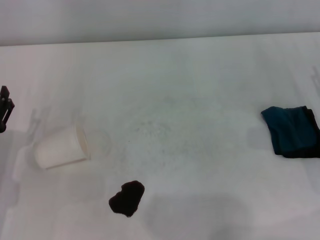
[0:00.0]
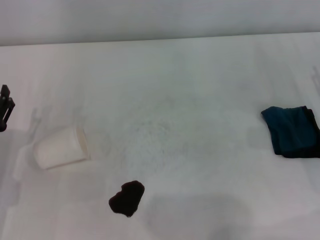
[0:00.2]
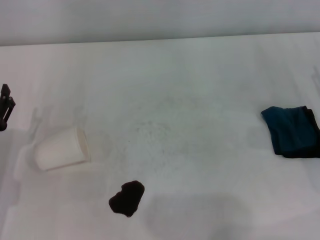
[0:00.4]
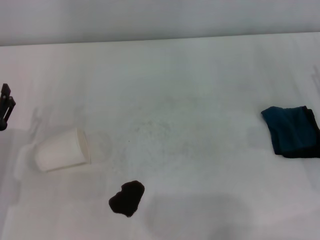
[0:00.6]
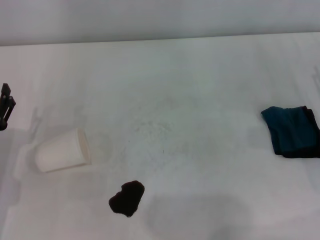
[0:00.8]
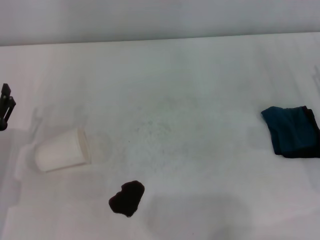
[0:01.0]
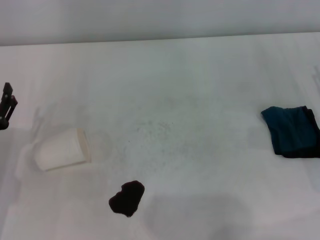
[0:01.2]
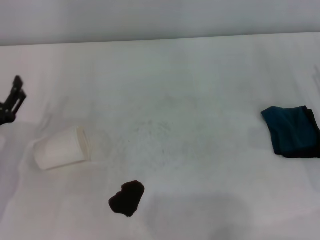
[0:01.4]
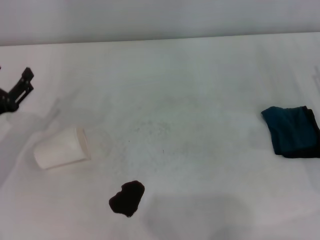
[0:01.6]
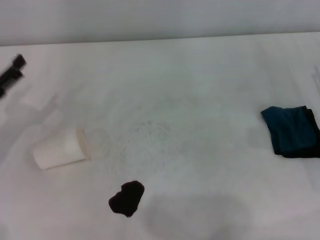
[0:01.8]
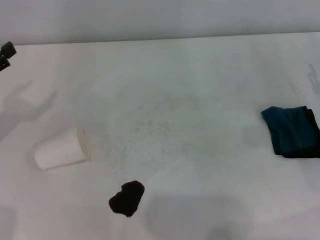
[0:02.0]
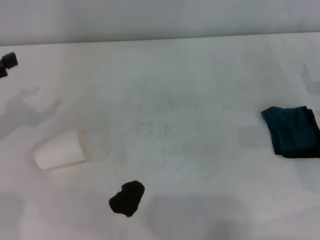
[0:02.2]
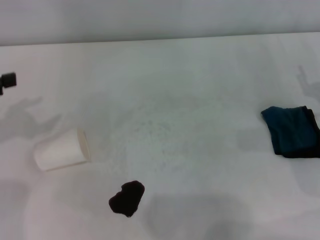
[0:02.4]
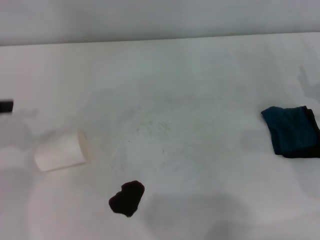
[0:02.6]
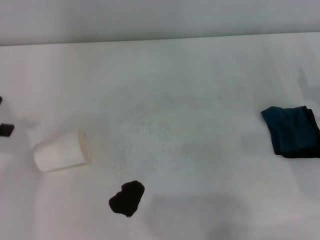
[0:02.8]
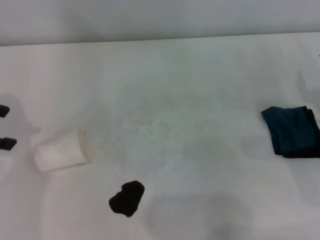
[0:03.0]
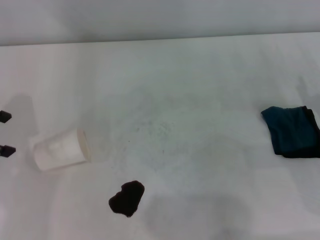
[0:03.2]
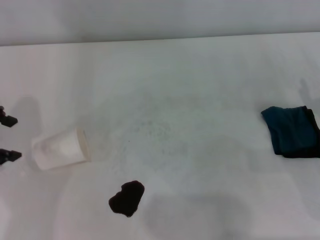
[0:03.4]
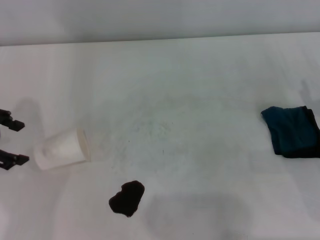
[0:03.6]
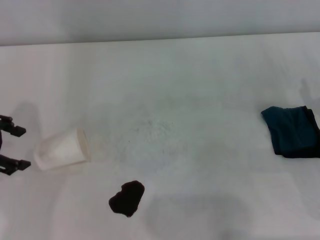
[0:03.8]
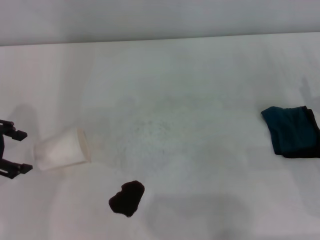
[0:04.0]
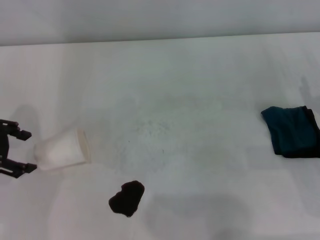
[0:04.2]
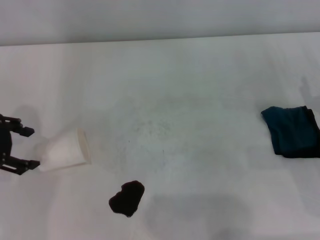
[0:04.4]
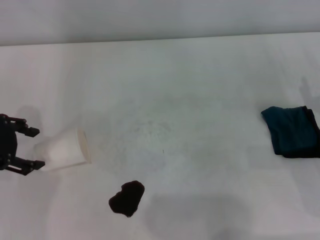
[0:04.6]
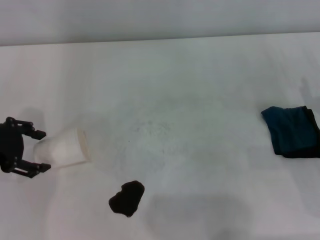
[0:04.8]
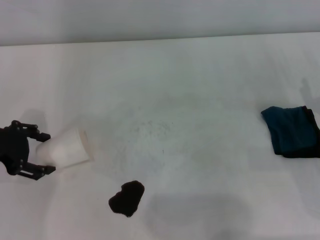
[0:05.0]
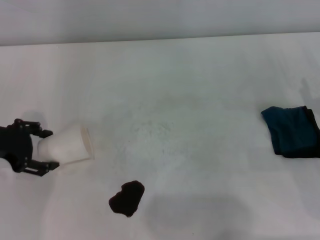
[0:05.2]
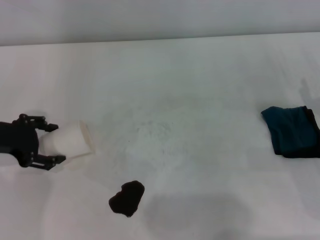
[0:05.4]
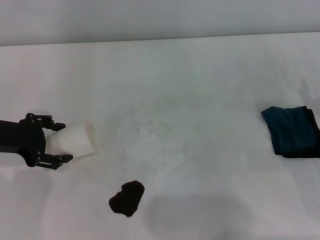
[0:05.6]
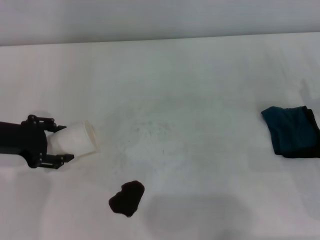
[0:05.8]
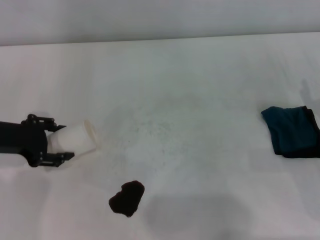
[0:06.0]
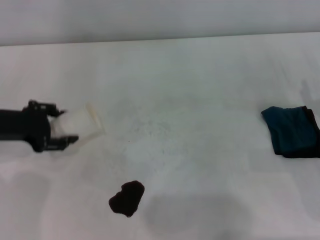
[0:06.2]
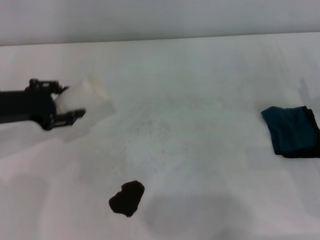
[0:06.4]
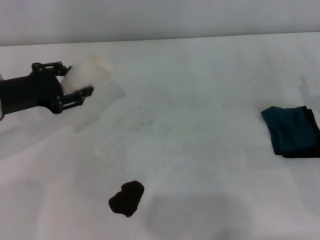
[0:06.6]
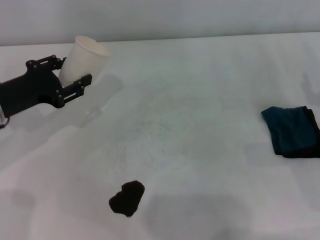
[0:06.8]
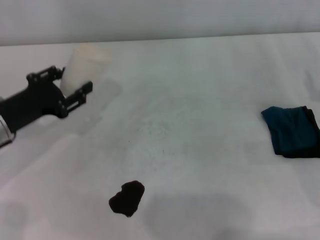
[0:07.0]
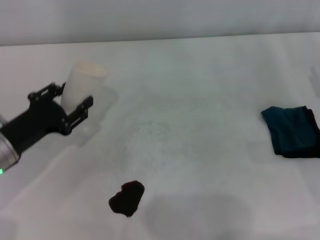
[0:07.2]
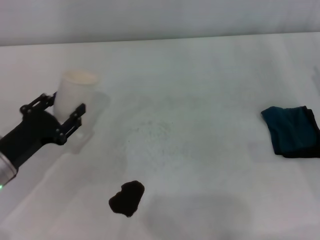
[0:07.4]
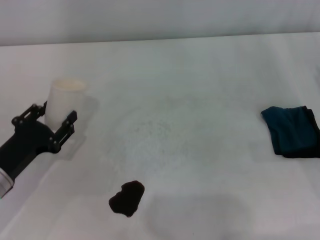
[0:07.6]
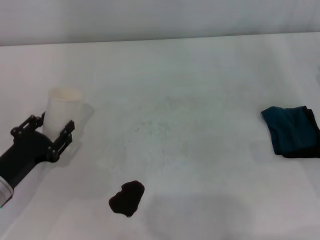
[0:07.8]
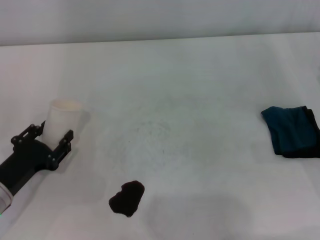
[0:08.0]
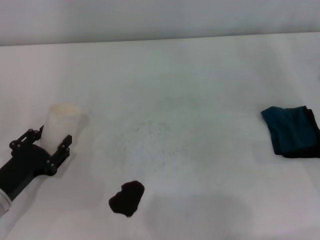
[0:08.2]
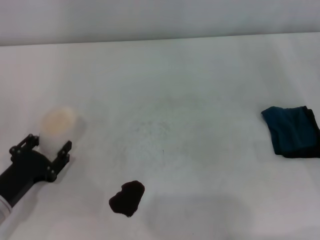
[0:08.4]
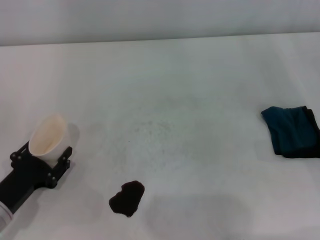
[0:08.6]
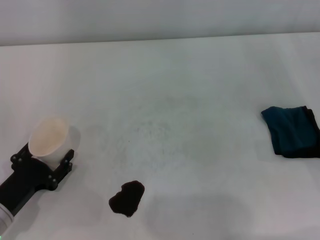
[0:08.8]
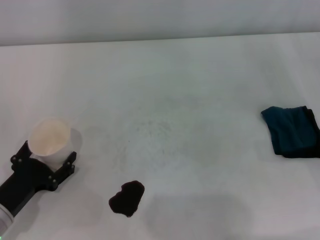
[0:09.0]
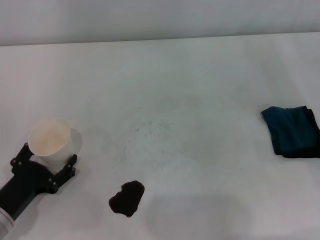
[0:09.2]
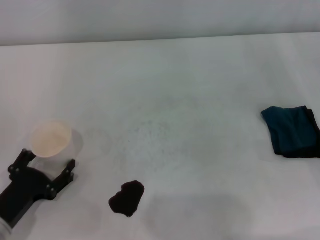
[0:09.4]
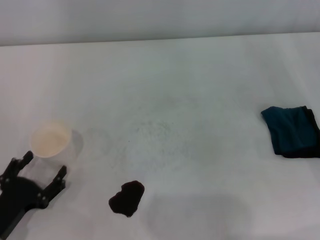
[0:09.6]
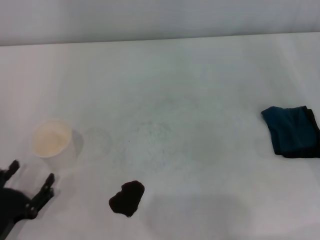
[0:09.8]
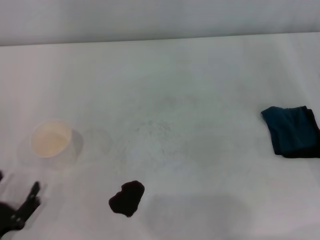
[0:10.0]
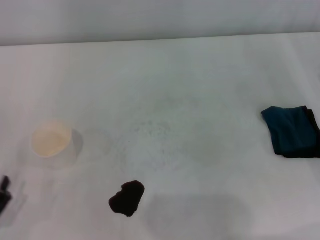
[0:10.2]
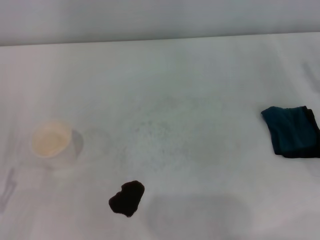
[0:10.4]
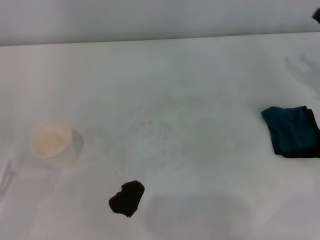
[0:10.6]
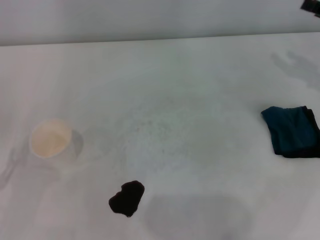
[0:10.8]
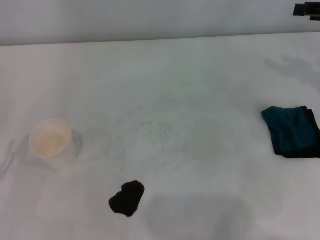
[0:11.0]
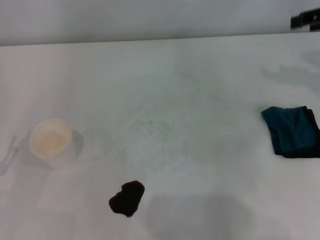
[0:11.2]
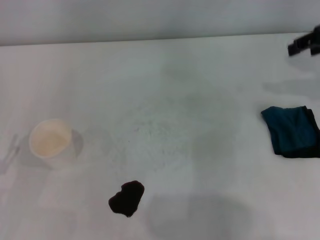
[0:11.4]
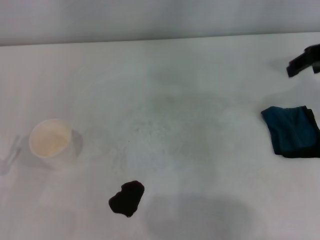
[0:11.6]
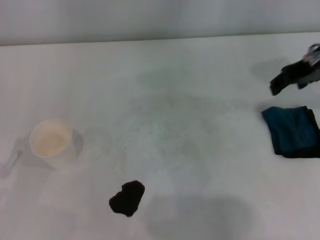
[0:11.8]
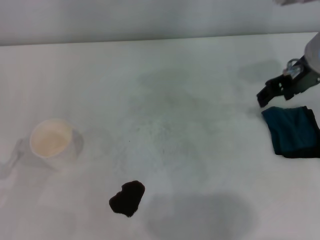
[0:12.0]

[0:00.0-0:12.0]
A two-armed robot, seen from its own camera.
Step, 0:00.0 to 0:05.8: Grasp the paper cup with the left gripper.
Step, 0:06.0 to 0:08.8: Stand the paper cup upright with the left gripper.
0:00.0 to 0:01.6: The left gripper changes place by approximately 5 cm.
0:01.6 to 0:03.0: The left gripper goes roughly 15 cm upward.
0:03.0 to 0:04.4: The left gripper shifts some 5 cm downward.
0:04.4 to 0:06.0: The left gripper ends up approximately 5 cm from where it was, and closes up.
0:06.0 to 0:07.6: The left gripper shifts about 10 cm backward and downward, and closes up.
0:07.6 to 0:09.0: The left gripper shifts by approximately 5 cm.
0:09.0 to 0:10.4: The left gripper moves backward and to the left, approximately 10 cm, and opens up.
0:10.4 to 0:12.0: The right gripper heads to the left, upward and forward, covering about 20 cm.

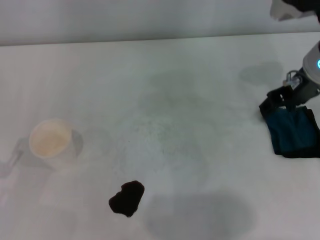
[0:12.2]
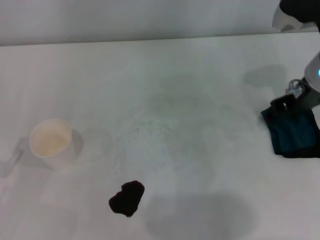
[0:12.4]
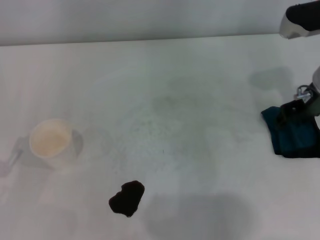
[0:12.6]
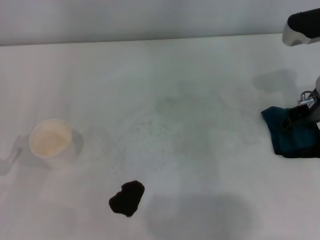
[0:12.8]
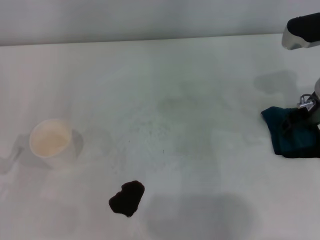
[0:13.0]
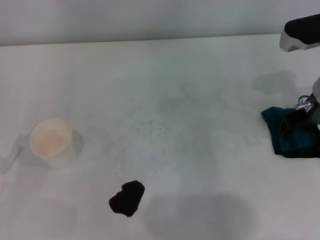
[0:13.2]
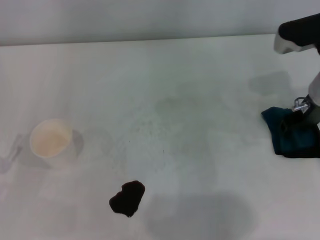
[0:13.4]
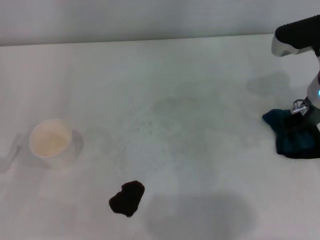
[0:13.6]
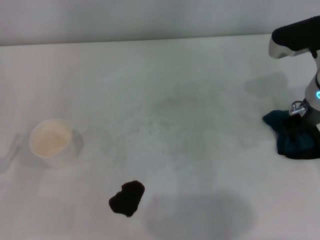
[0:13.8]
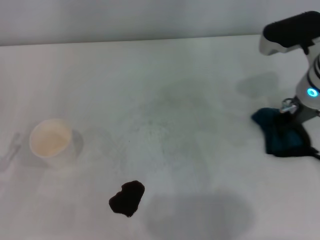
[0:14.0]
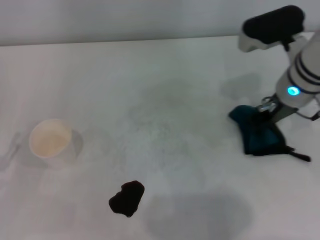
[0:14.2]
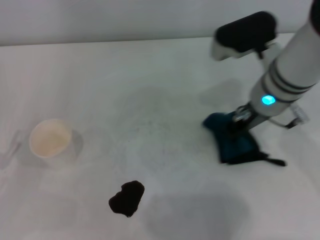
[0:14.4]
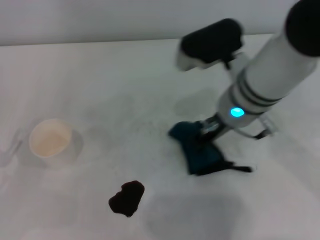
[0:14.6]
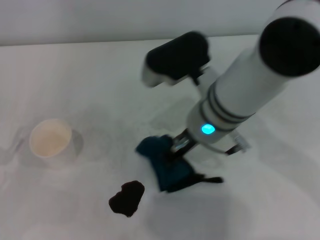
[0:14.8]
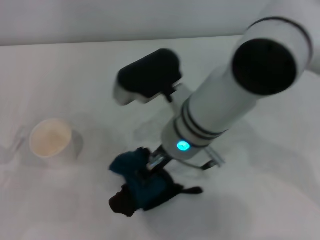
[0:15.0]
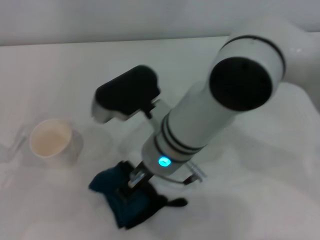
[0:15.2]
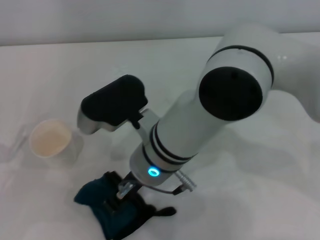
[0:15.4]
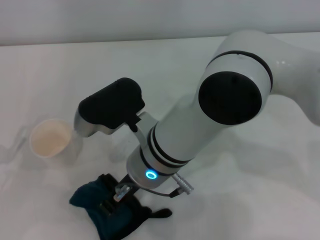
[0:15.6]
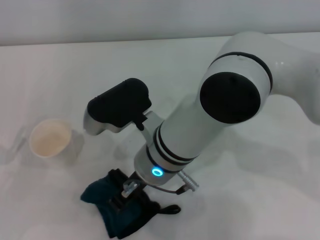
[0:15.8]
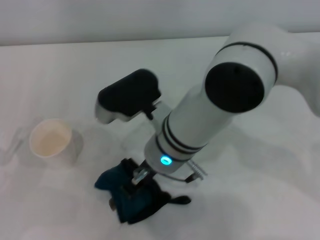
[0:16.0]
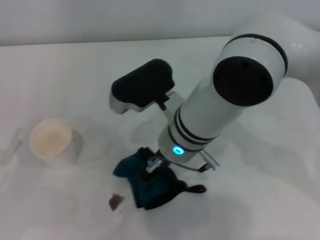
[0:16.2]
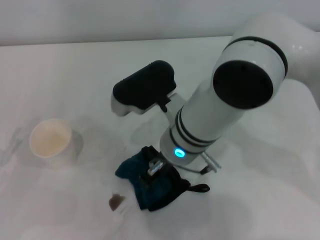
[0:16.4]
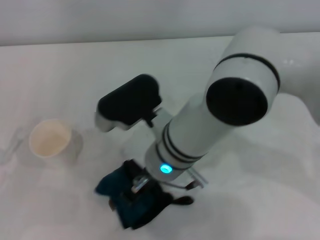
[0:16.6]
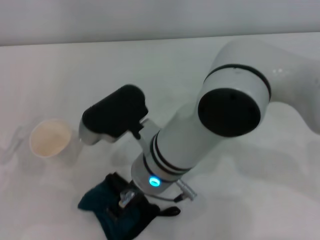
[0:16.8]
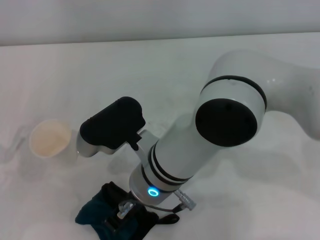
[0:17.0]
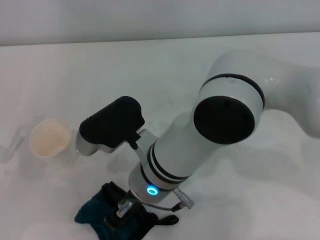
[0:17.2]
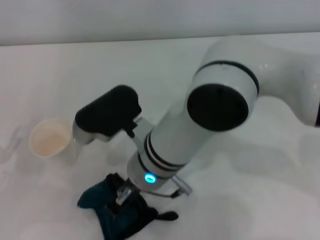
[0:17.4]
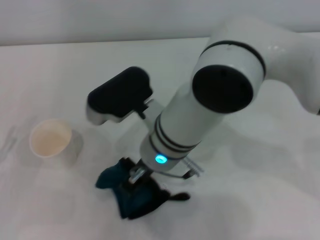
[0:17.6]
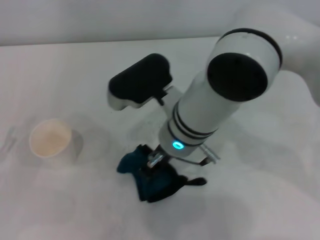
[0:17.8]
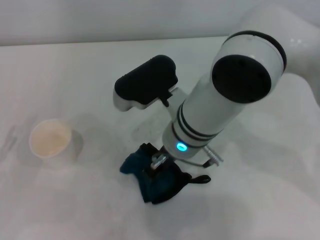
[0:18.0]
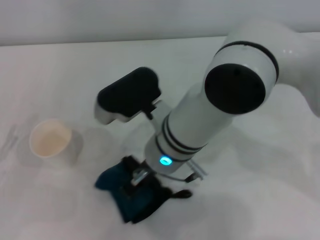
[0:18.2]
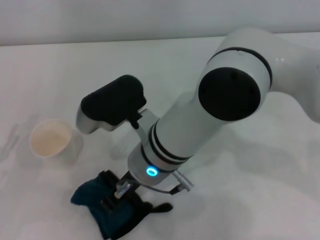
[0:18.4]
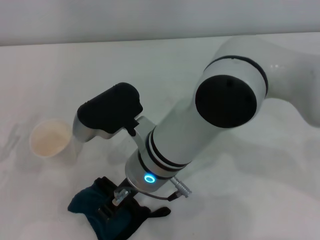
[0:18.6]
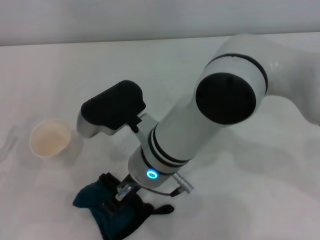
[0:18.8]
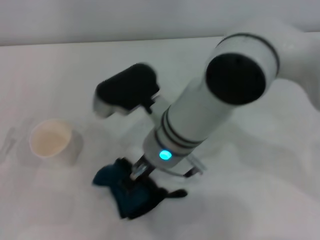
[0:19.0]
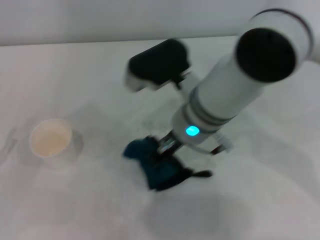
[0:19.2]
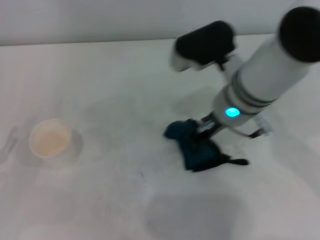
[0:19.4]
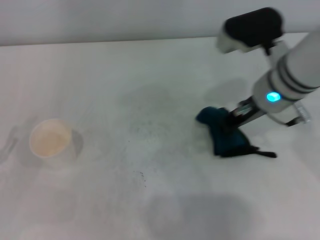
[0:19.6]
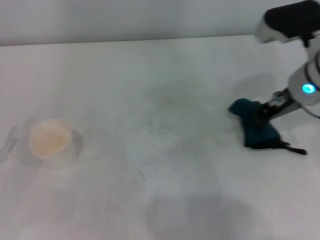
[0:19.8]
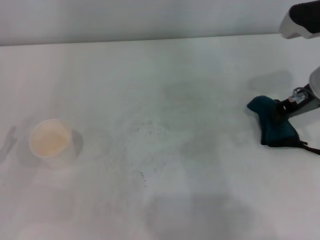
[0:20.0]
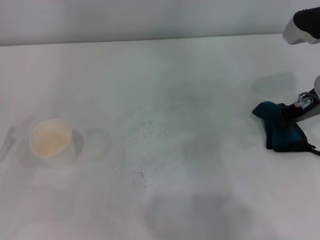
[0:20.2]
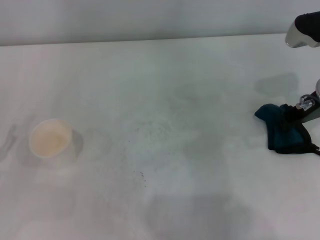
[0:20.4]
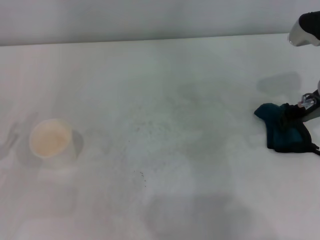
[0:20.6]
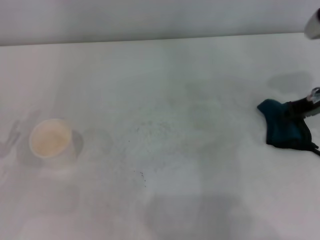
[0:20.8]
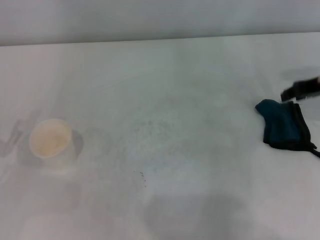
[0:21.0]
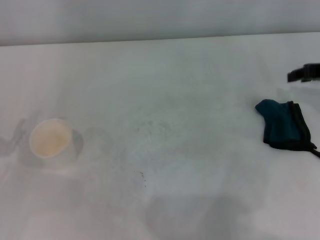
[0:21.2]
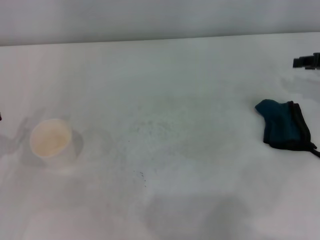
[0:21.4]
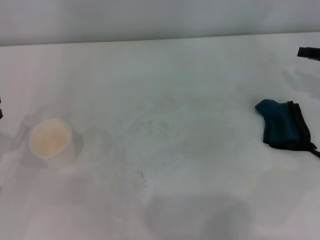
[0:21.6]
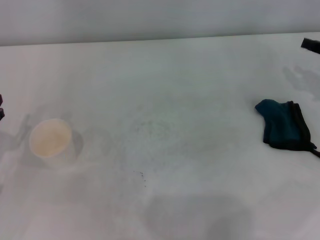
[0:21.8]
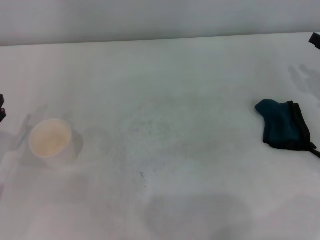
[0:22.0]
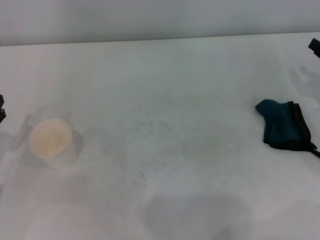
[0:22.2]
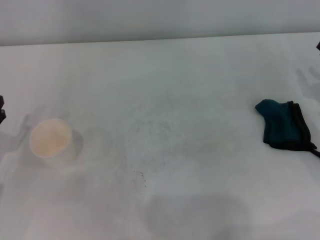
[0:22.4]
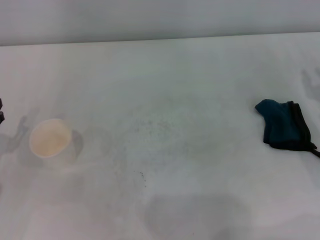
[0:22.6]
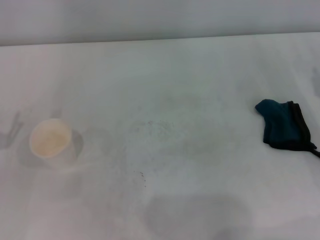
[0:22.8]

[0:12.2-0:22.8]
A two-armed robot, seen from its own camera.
Step, 0:13.8 to 0:20.0: Wipe the stains off the table with the right gripper.
Step, 0:20.2 to 0:20.8: Place the rag on the table with the right gripper.
0:12.2 to 0:13.8: The right gripper closes its fingers.
0:13.8 to 0:15.2: The right gripper shifts roughly 25 cm to the left.
0:16.8 to 0:18.2: There are only small adjustments of the grippers.
0:18.2 to 0:19.8: The right gripper shifts roughly 20 cm to the right.
0:19.8 to 0:21.2: The right gripper heads to the right, covering some 10 cm, and opens.
0:21.2 to 0:22.8: The right gripper goes about 10 cm downward and backward.
